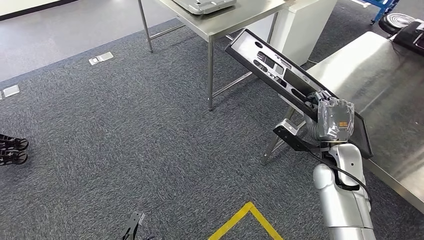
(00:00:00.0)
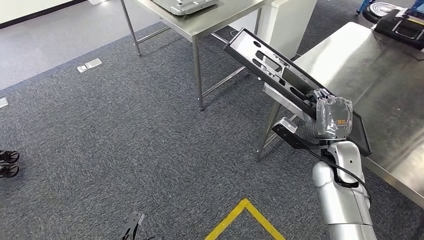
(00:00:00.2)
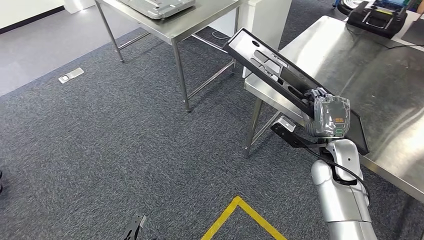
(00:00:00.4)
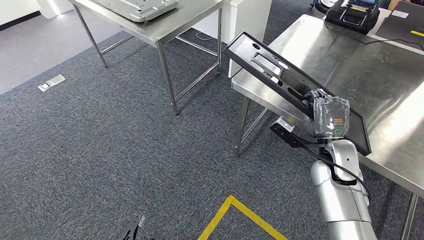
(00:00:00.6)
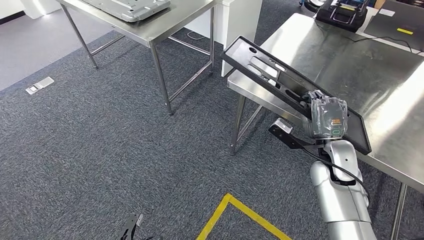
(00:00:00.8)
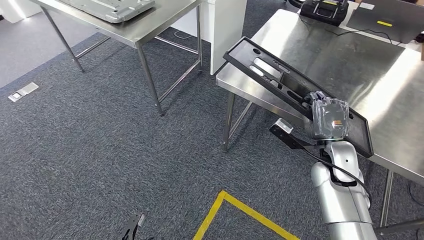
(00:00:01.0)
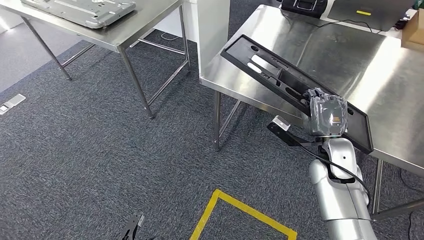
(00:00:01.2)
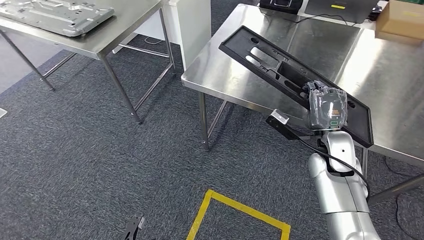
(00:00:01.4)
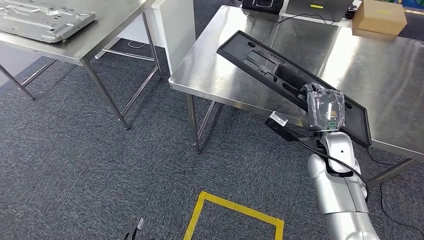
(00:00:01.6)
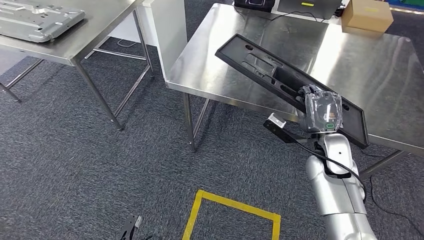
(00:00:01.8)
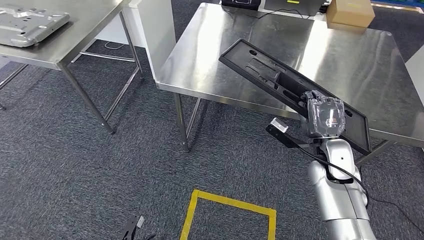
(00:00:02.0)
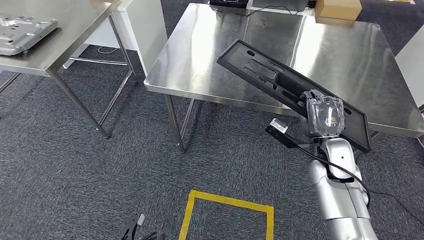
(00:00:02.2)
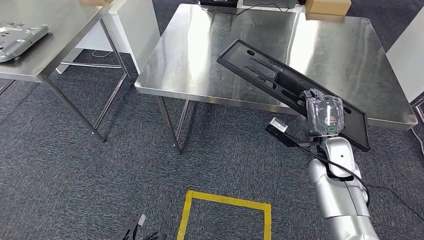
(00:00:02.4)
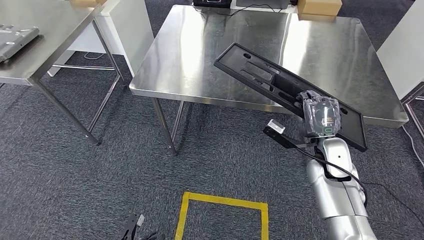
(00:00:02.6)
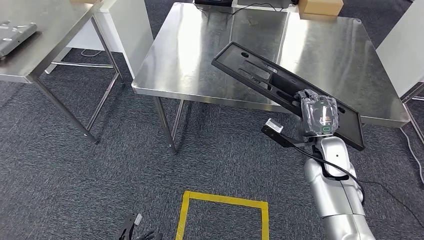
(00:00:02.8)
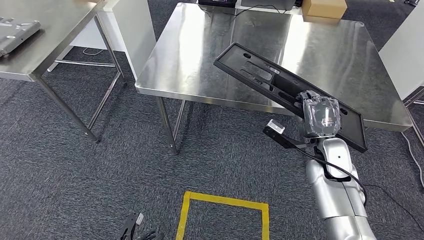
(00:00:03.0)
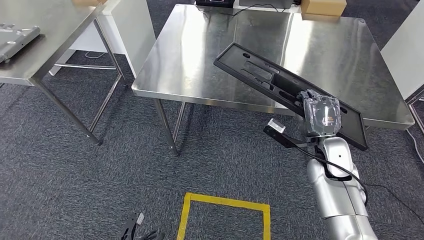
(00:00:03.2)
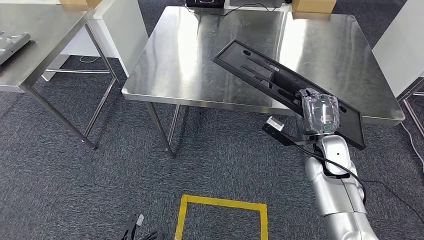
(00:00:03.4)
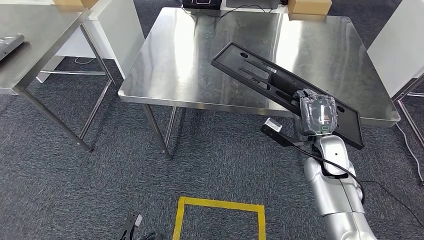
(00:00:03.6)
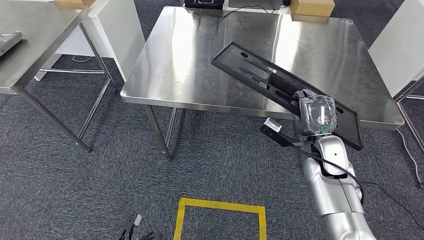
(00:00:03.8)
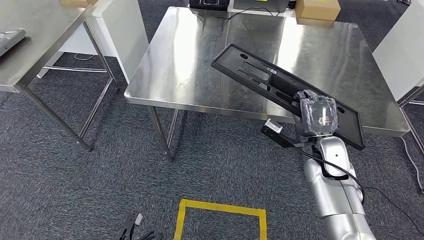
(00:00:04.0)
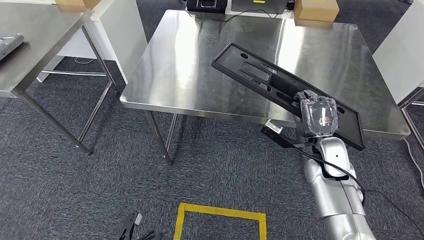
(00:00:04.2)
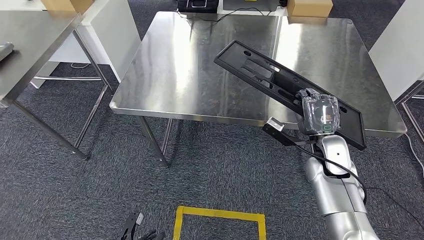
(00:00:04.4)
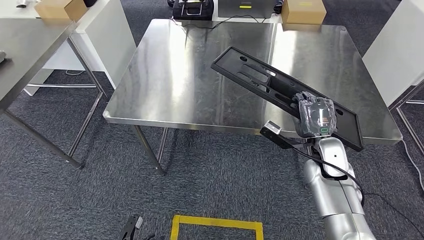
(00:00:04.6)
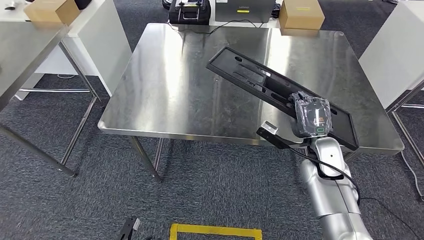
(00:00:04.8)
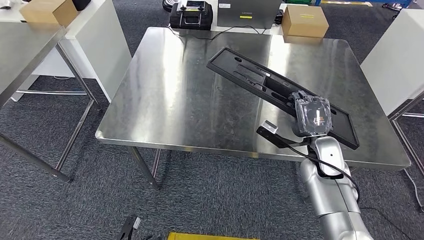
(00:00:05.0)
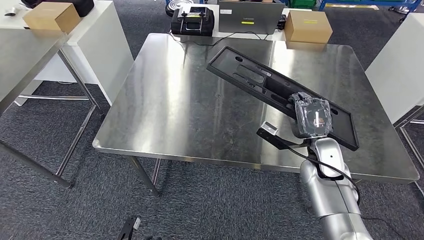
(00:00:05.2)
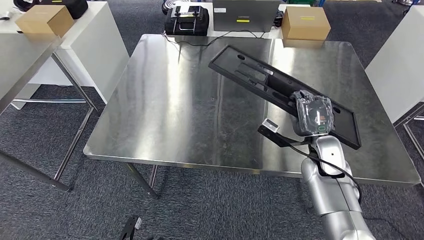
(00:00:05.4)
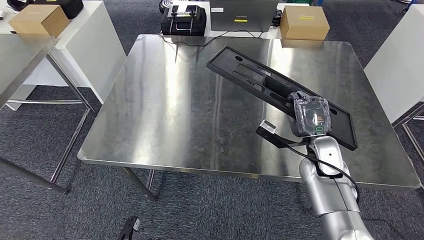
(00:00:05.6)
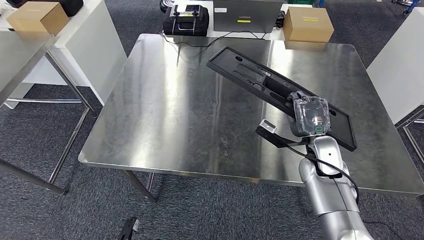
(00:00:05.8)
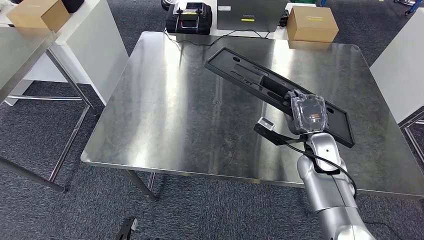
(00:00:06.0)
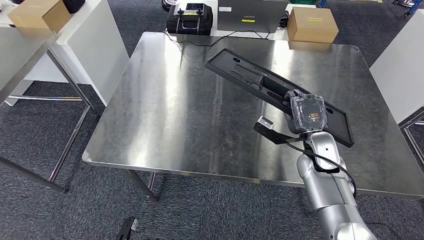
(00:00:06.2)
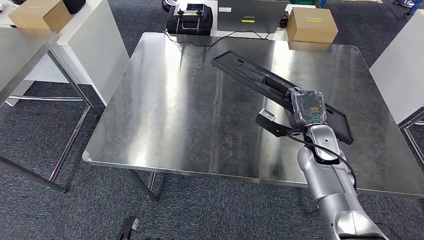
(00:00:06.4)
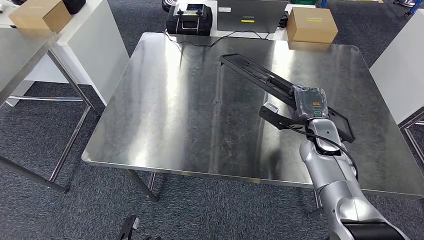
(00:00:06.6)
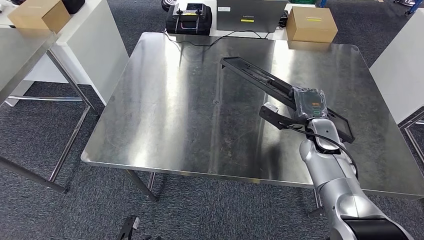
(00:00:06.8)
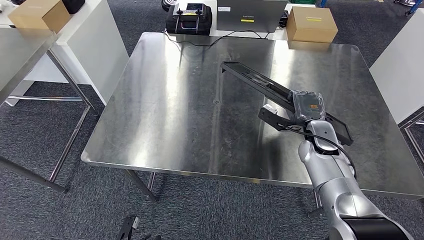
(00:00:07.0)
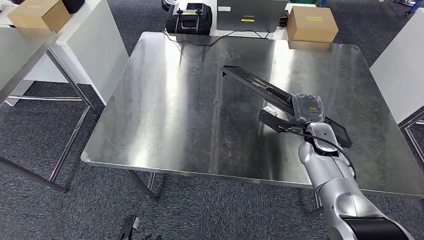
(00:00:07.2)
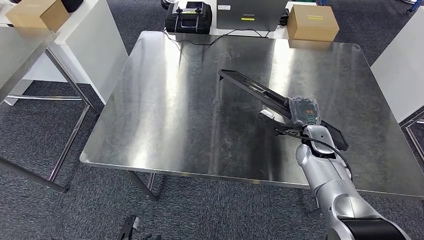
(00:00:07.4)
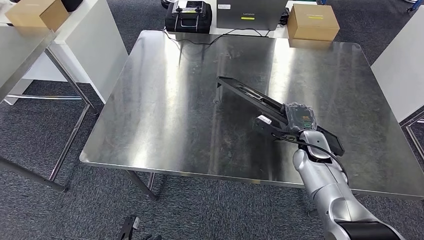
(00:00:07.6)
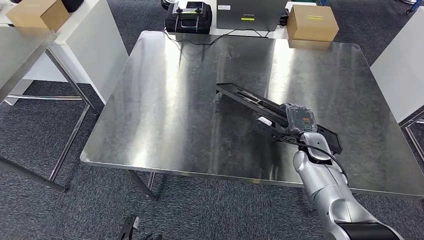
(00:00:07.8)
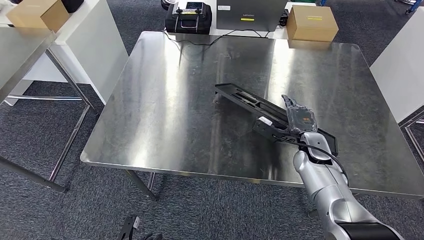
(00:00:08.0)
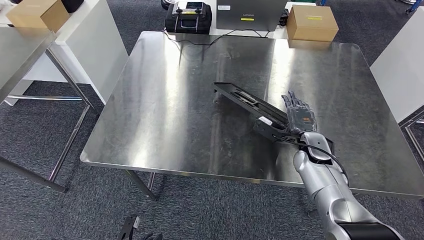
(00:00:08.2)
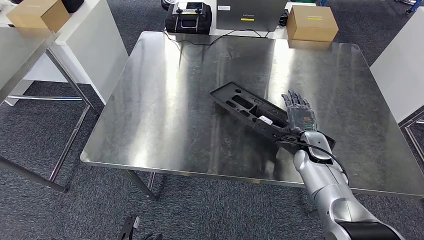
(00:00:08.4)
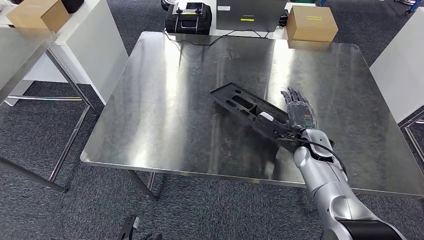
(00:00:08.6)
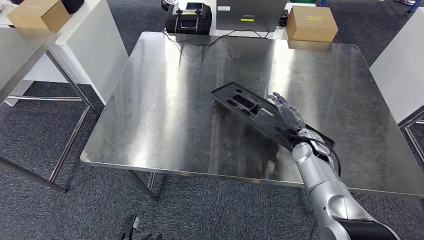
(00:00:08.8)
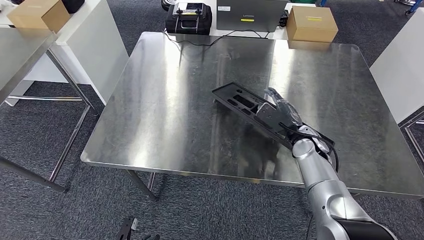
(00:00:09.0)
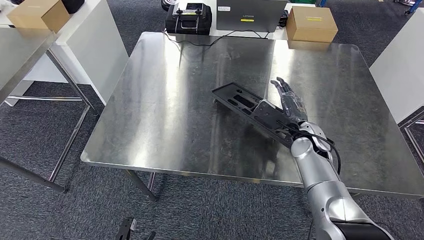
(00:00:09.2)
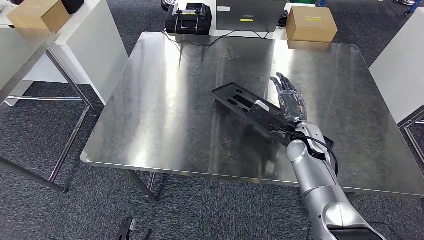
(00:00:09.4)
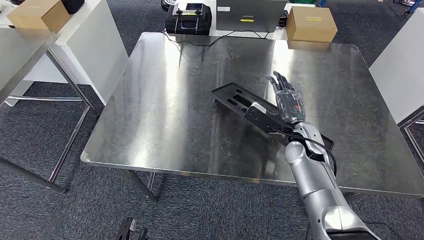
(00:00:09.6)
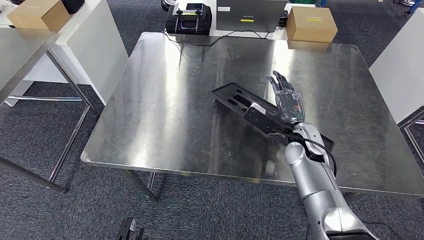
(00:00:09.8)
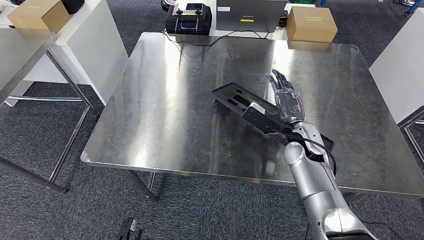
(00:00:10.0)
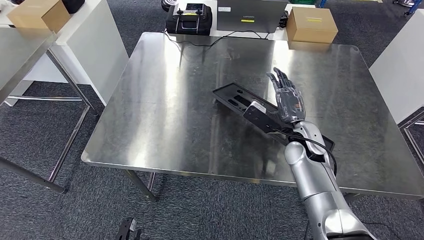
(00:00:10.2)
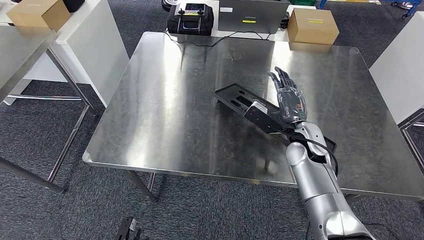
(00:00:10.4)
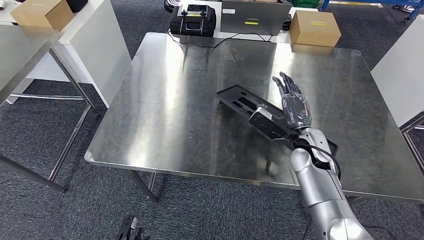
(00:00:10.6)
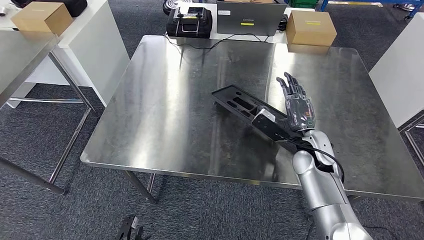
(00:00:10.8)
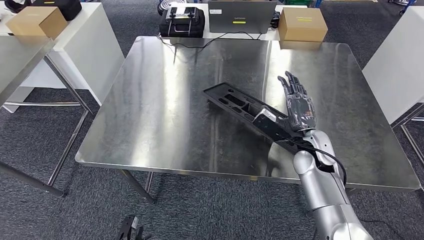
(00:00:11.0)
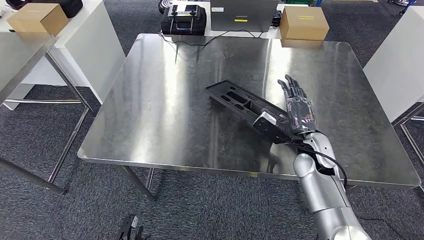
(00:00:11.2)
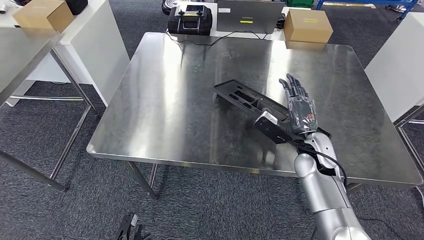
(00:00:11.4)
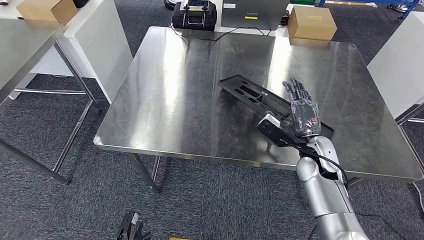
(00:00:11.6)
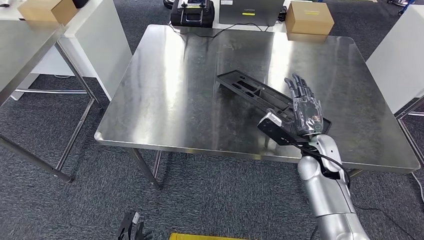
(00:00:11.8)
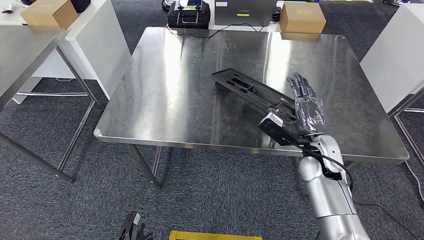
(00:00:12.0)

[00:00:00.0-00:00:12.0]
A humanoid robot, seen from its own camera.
Step, 00:00:00.0 to 00:00:03.4: Move the large material to the workbench.

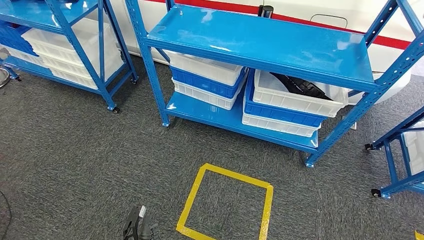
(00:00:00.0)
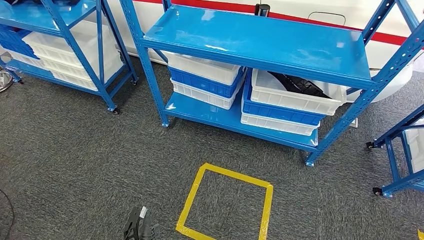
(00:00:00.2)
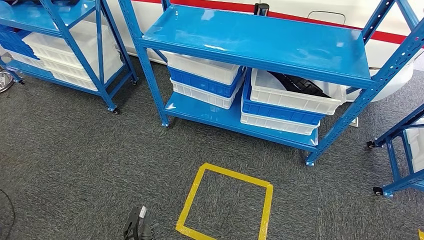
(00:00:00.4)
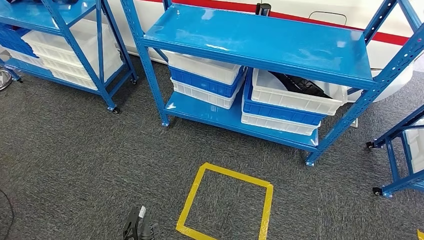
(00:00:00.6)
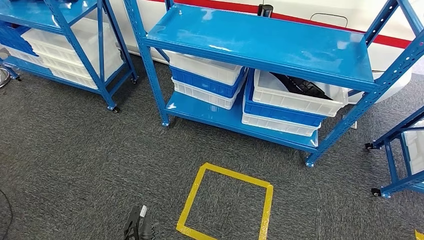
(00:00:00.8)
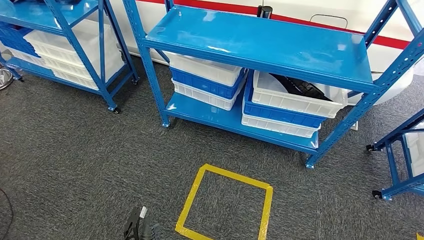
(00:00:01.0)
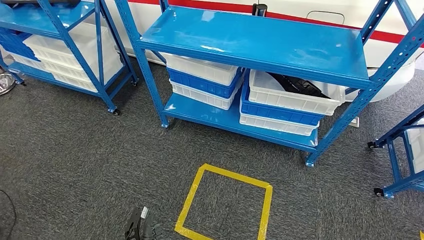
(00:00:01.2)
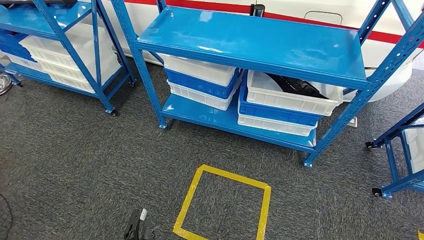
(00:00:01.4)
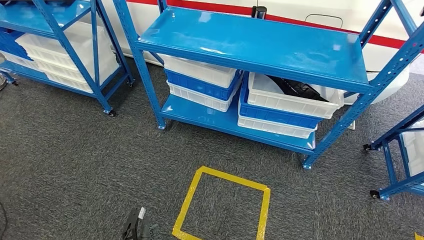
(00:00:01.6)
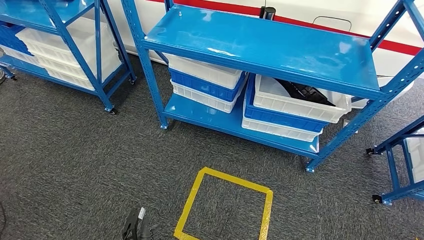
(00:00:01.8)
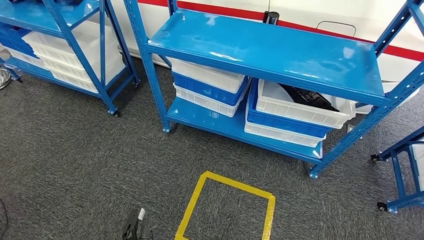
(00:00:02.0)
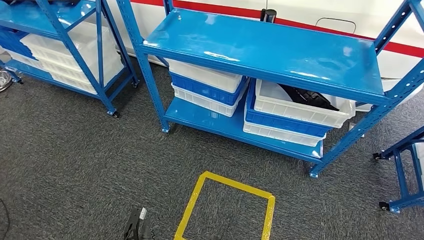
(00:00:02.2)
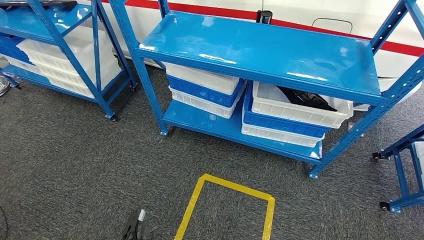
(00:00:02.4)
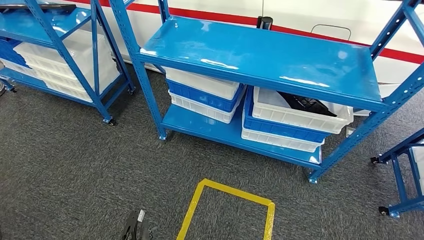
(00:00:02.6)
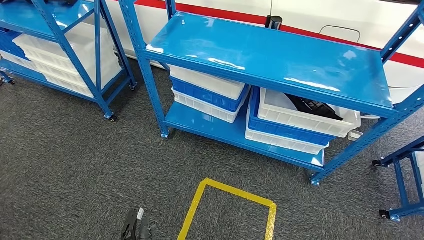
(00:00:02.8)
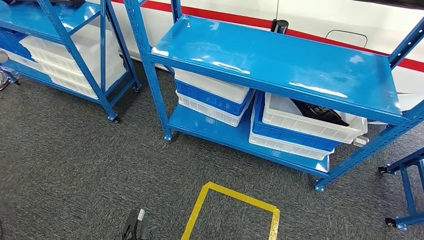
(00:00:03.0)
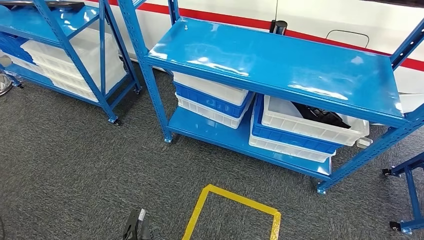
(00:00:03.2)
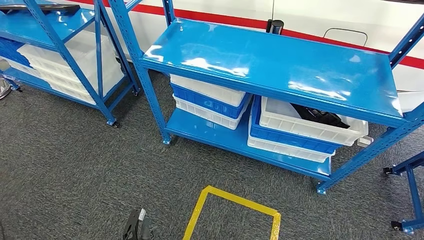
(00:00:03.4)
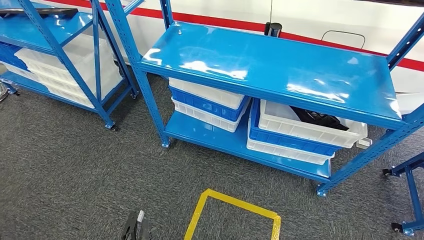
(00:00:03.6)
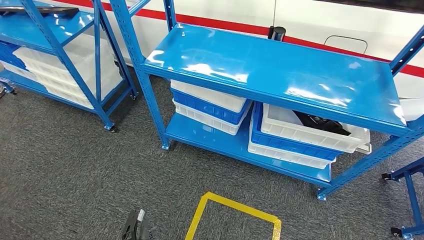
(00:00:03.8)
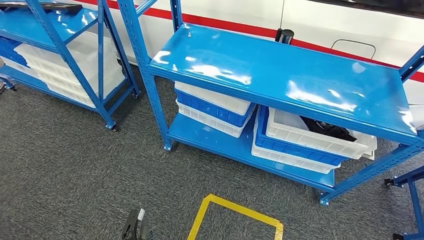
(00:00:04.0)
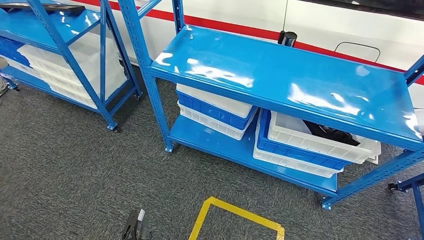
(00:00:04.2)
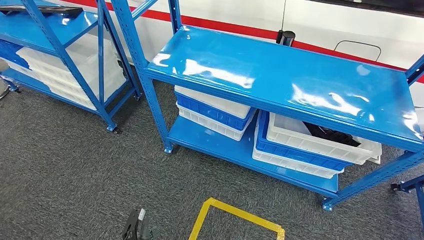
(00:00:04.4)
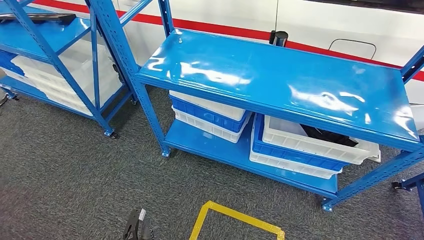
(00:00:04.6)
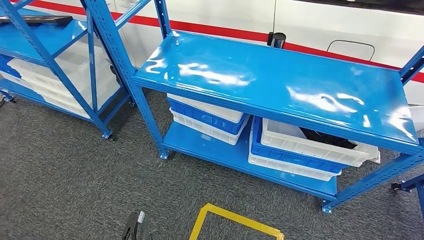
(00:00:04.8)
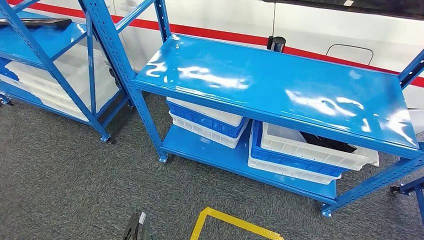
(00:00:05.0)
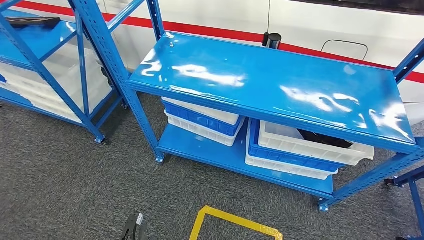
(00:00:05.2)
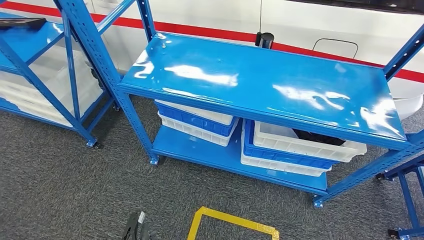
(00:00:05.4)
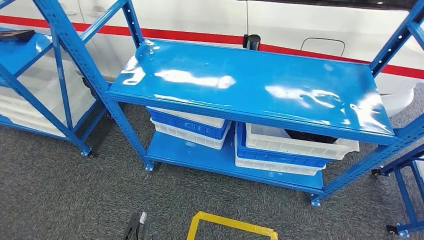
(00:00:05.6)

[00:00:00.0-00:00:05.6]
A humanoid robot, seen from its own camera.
Step, 00:00:00.0 to 00:00:05.6: Move to the initial position of the shelf.
